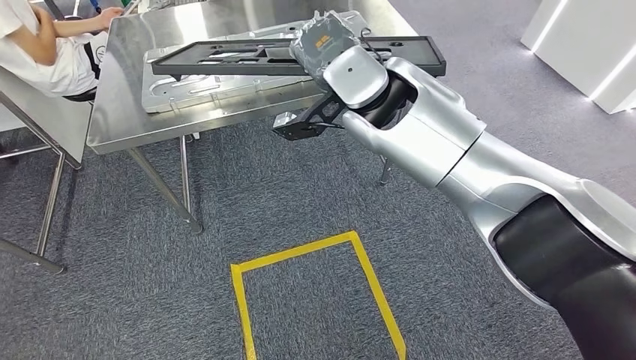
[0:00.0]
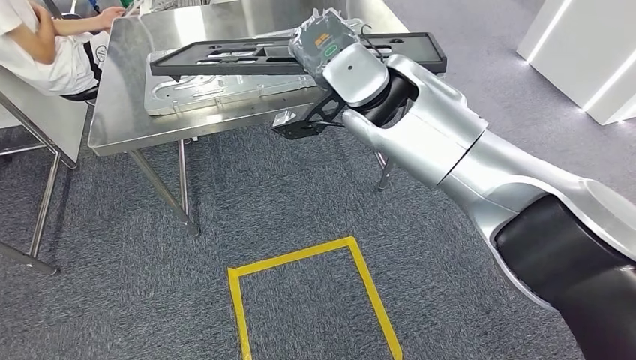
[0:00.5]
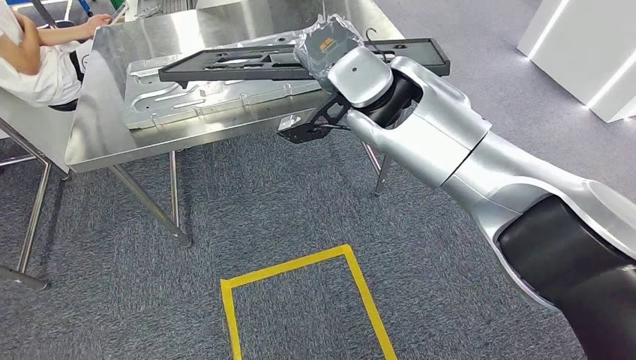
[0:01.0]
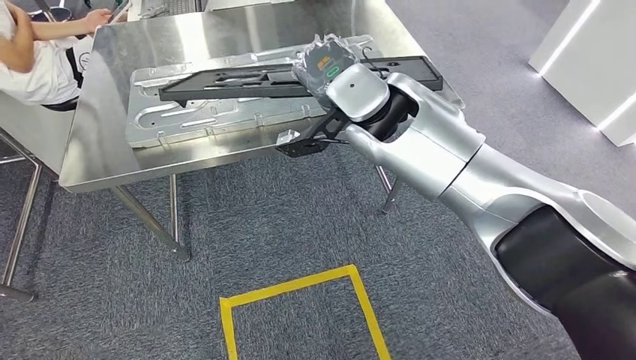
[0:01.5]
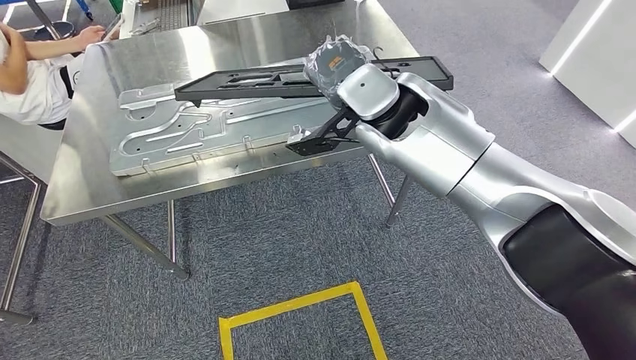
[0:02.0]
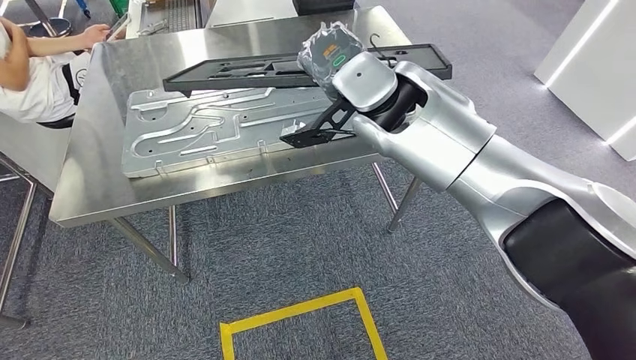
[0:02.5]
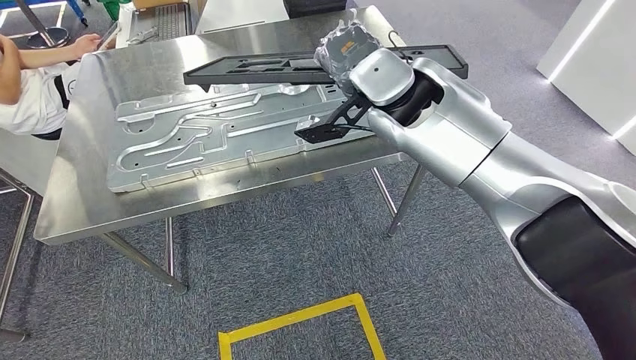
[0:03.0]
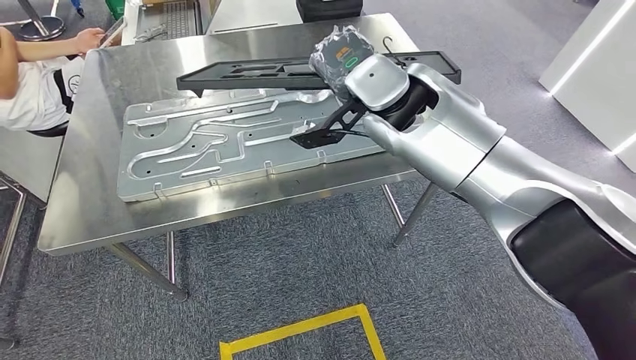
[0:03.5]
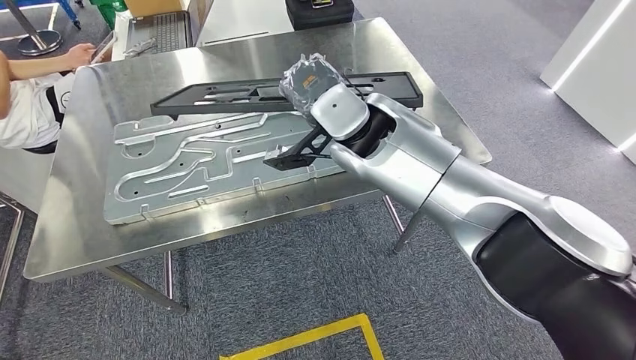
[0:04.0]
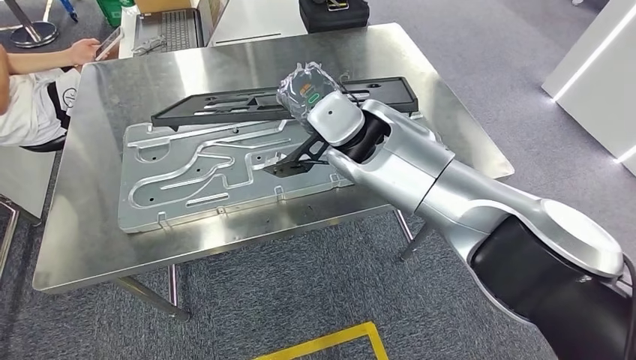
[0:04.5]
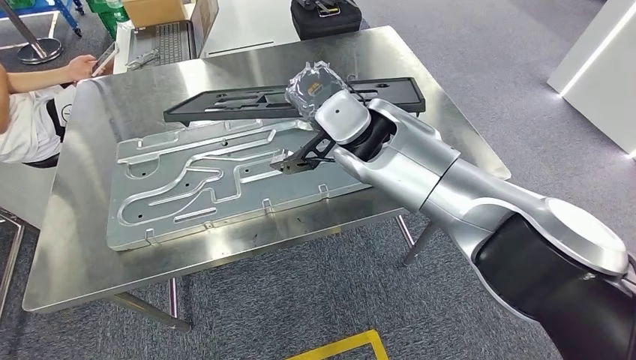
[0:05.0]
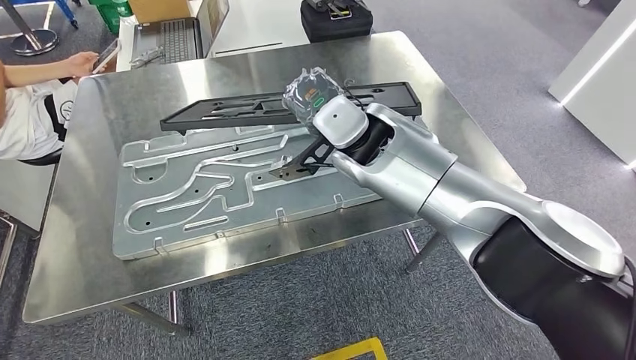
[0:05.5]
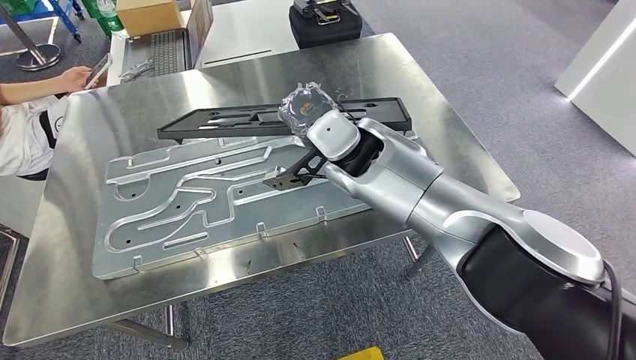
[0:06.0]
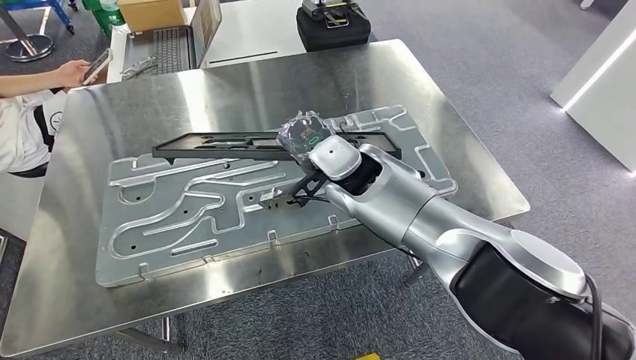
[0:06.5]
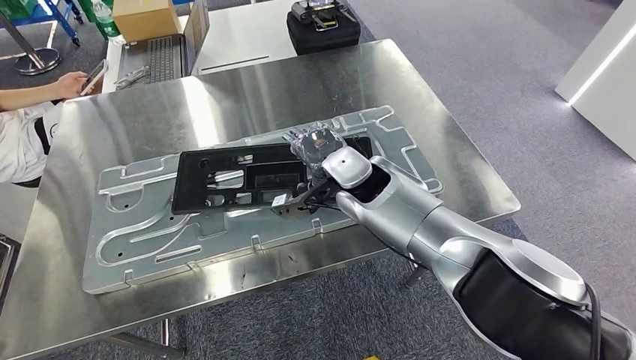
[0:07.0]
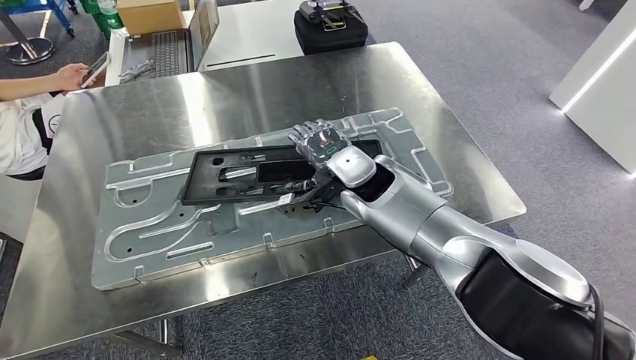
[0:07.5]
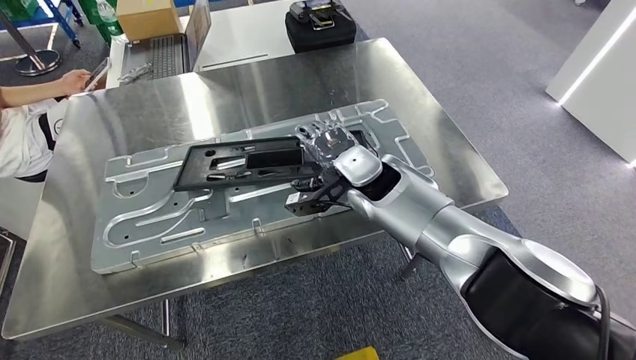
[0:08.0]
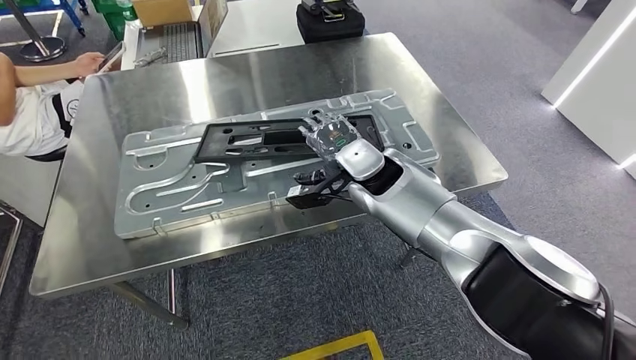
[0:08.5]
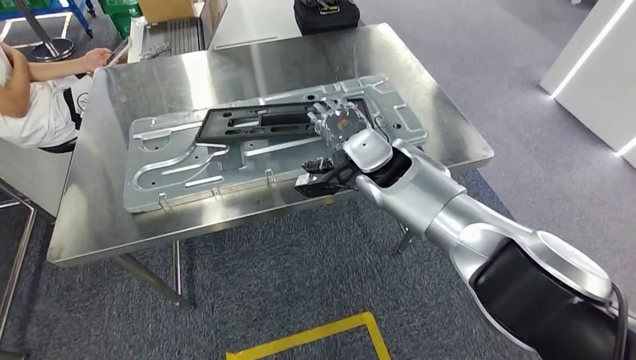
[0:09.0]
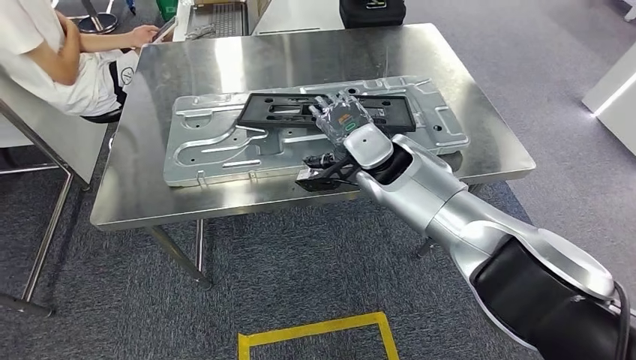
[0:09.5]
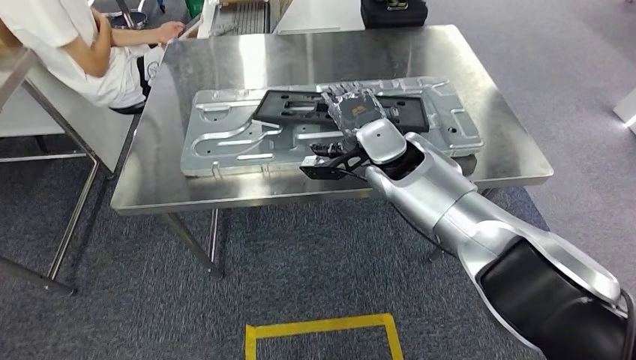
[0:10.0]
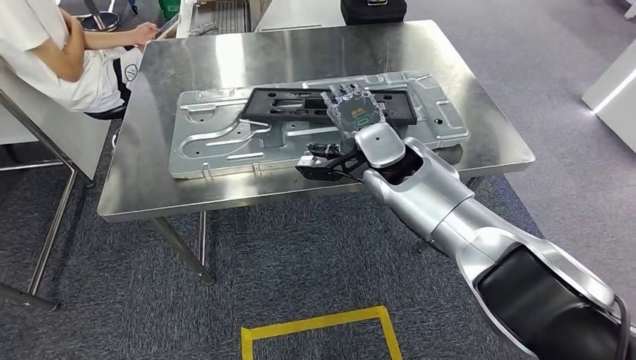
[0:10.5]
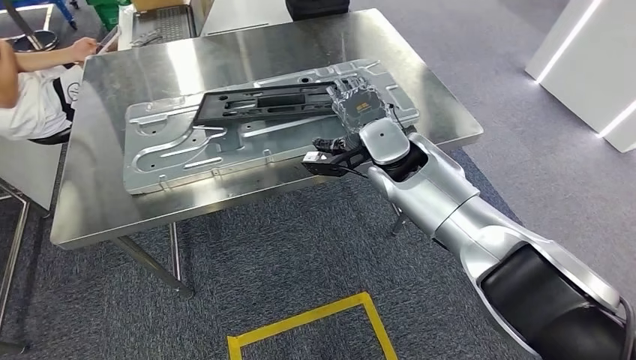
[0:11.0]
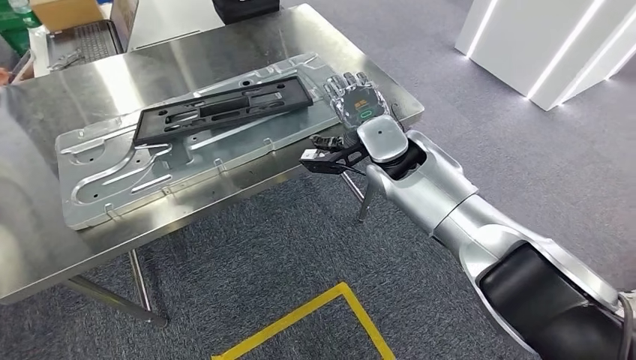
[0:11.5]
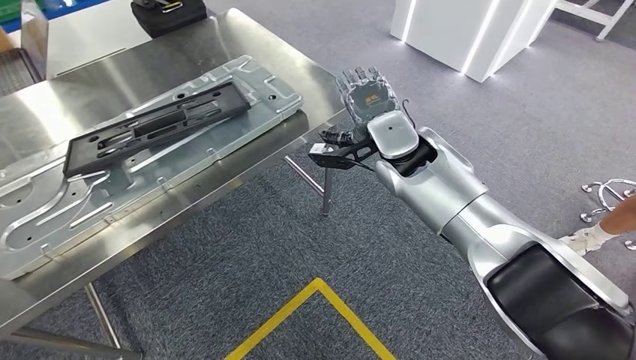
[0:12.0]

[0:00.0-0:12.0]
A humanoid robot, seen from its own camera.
Step, 0:00.0 to 0:05.5: Move the large material to the workbench.

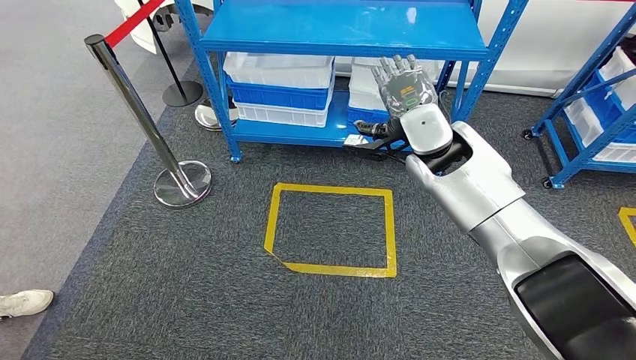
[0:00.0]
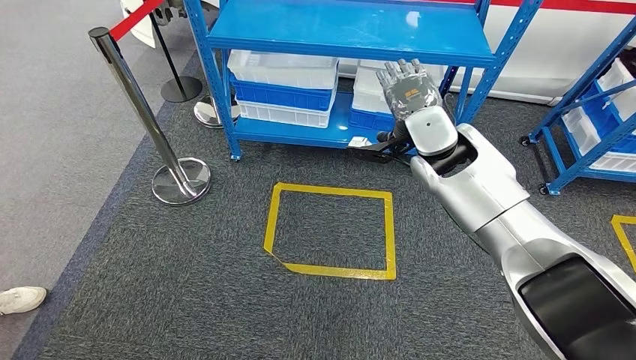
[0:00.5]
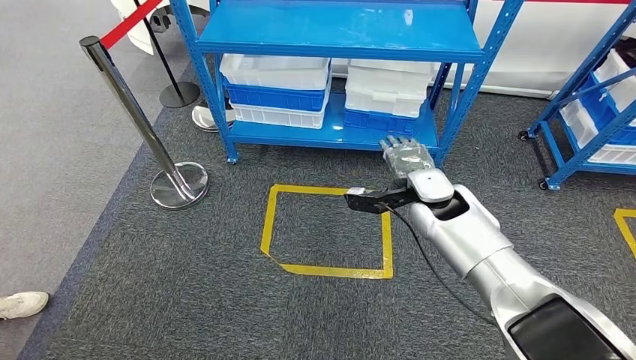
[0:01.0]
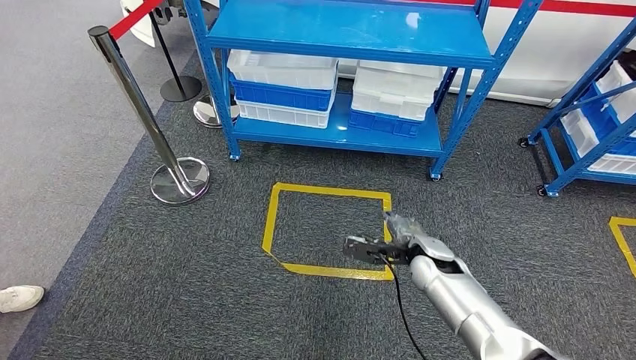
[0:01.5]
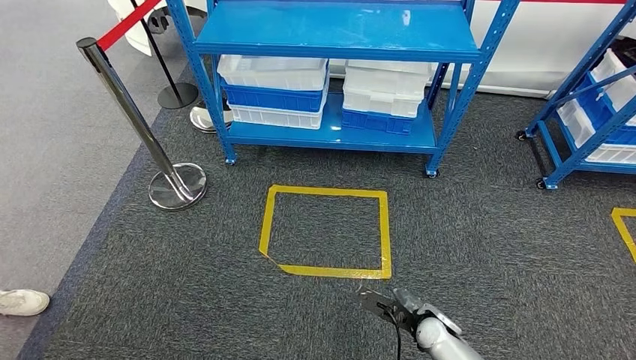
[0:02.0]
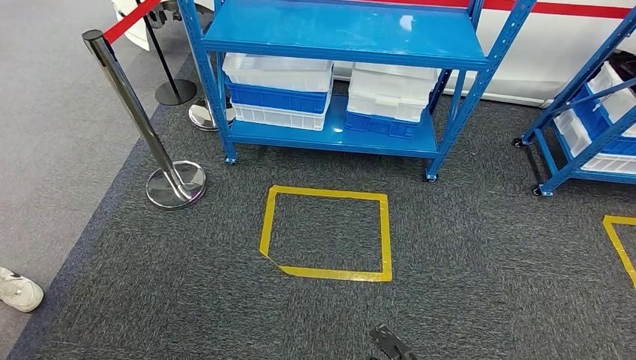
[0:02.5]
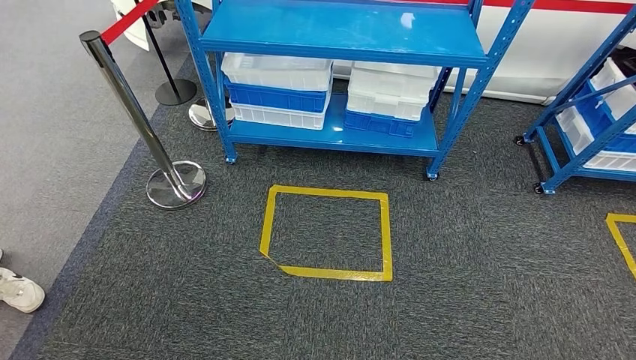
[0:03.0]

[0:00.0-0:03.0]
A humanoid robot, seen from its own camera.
Step, 0:00.0 to 0:03.0: Move to the initial position of the shelf.
0:01.5 to 0:03.0: The right hand moves backward and downward, roughly 40 cm.
